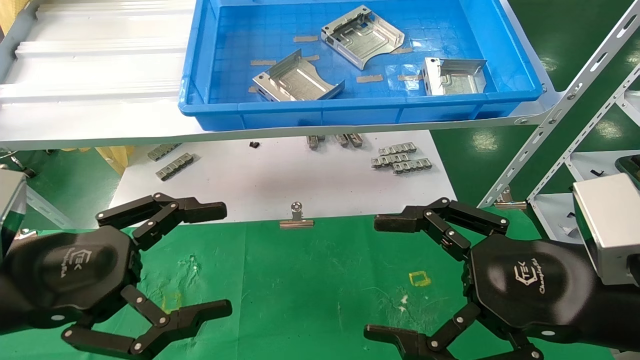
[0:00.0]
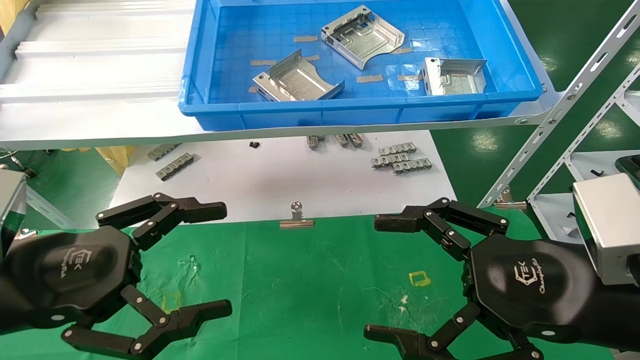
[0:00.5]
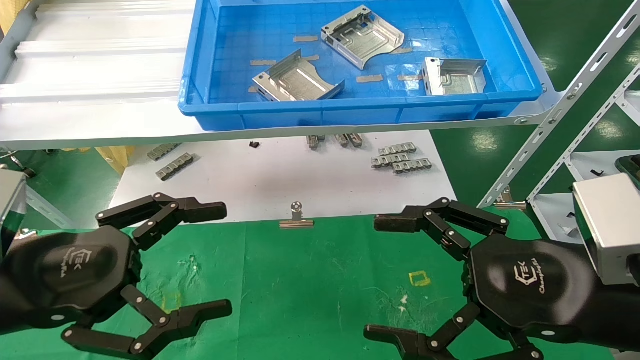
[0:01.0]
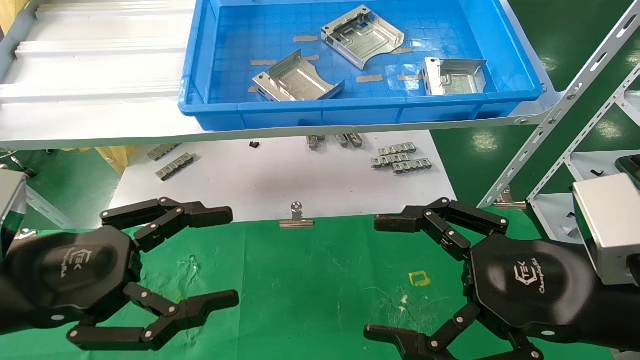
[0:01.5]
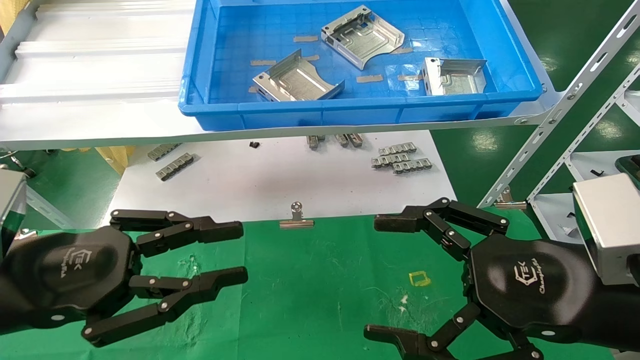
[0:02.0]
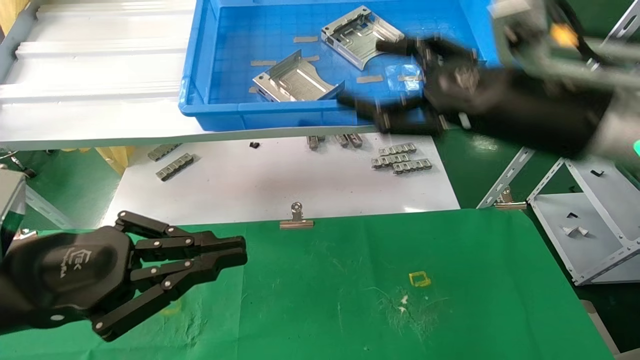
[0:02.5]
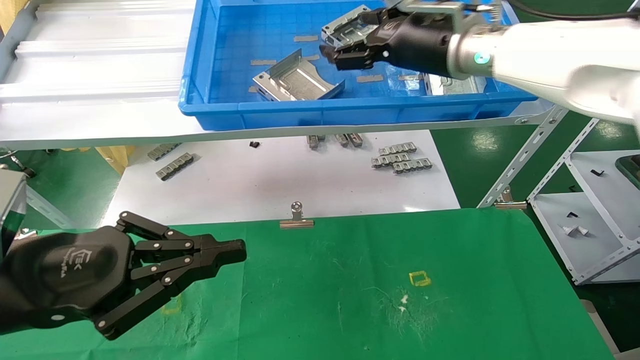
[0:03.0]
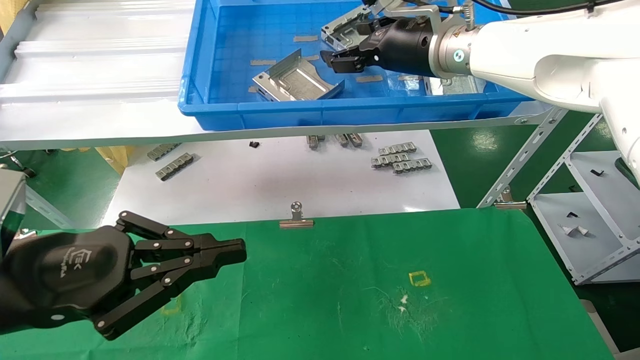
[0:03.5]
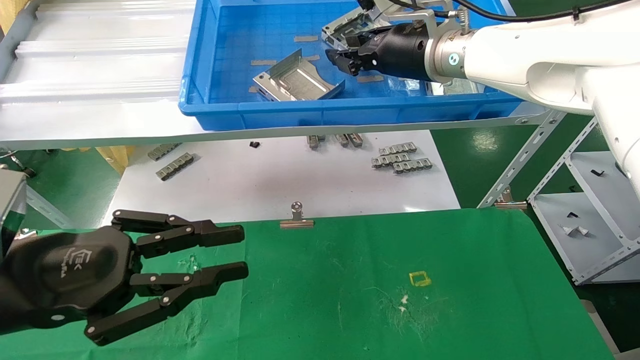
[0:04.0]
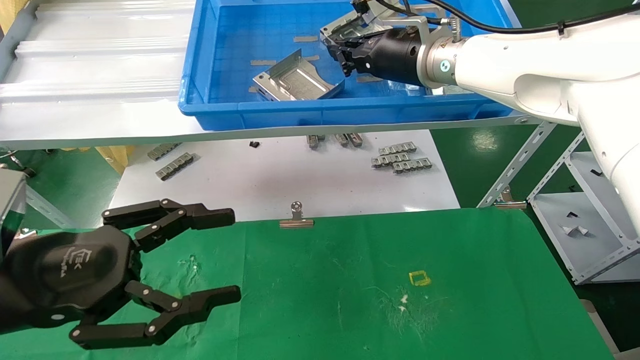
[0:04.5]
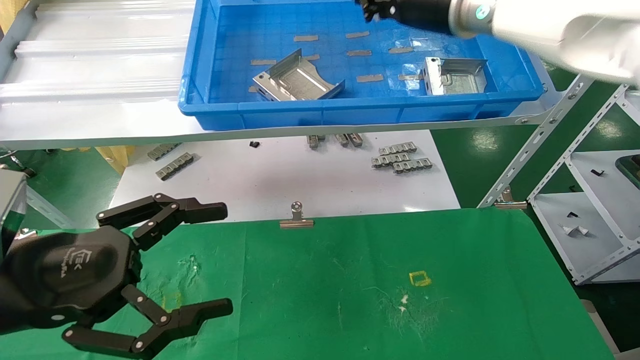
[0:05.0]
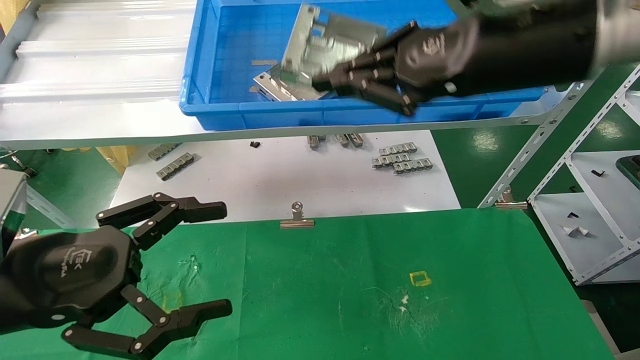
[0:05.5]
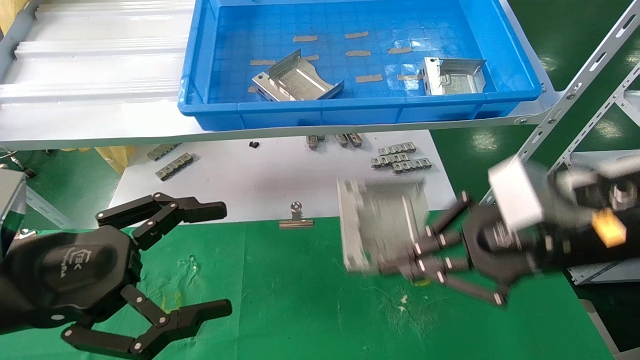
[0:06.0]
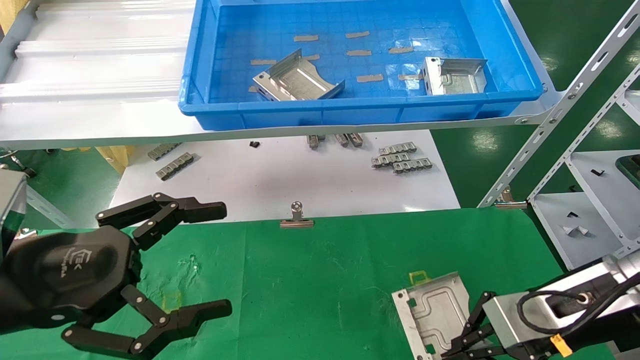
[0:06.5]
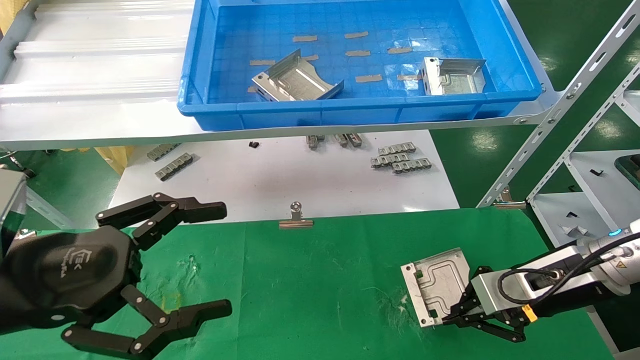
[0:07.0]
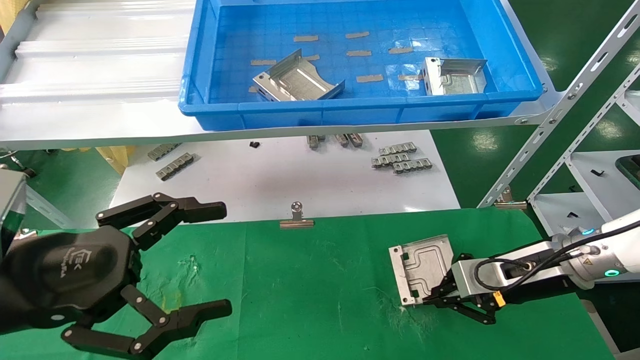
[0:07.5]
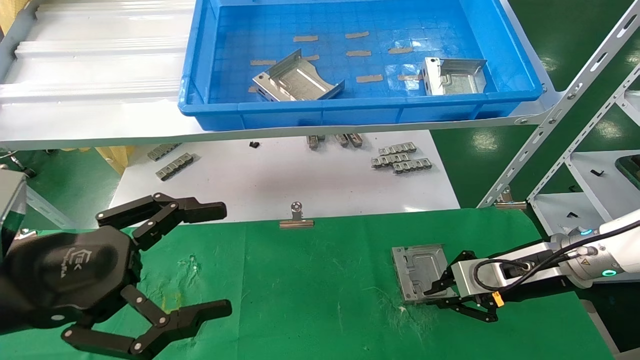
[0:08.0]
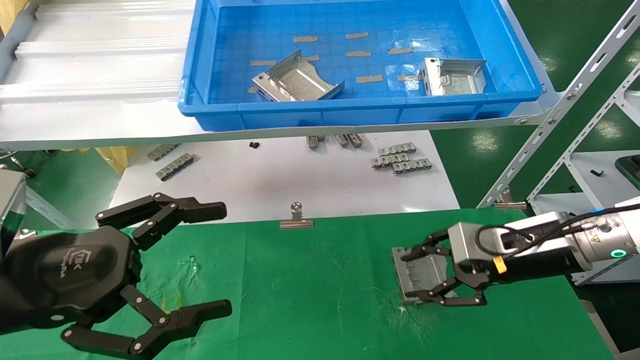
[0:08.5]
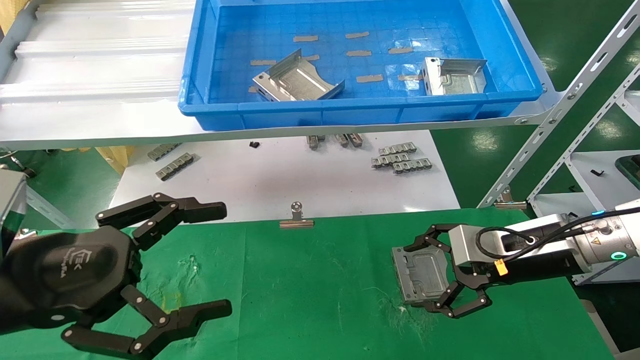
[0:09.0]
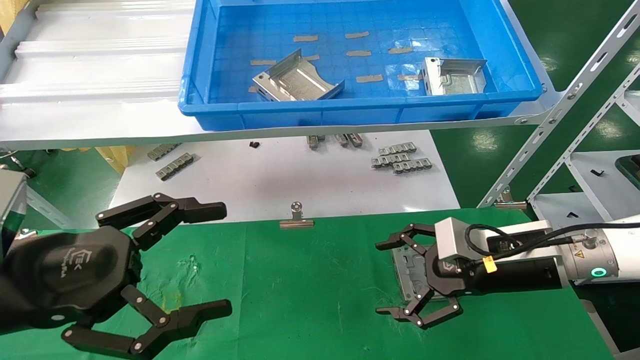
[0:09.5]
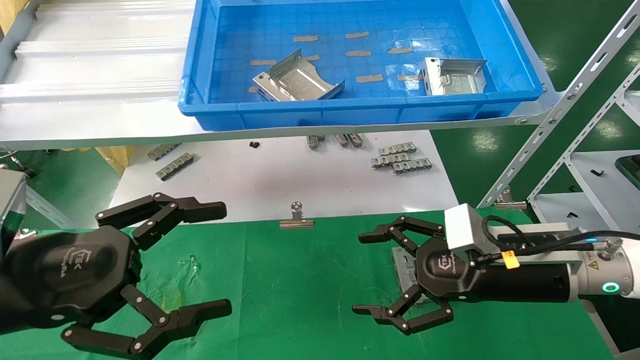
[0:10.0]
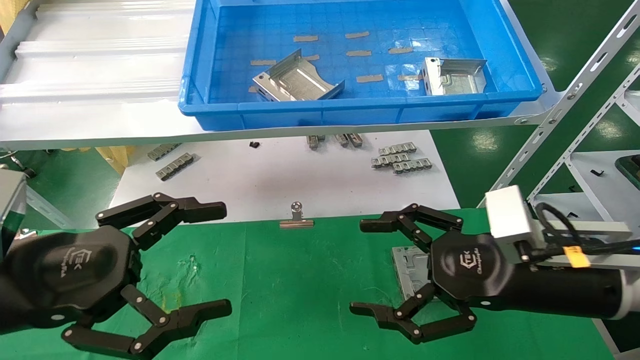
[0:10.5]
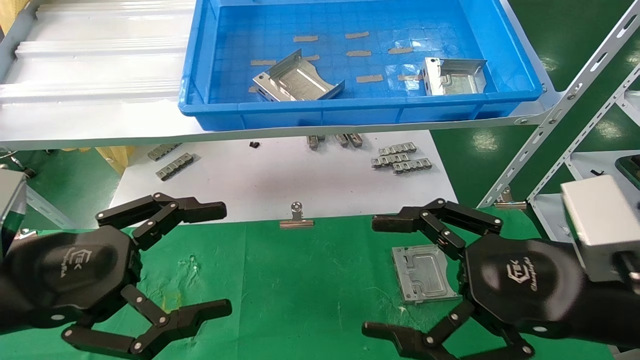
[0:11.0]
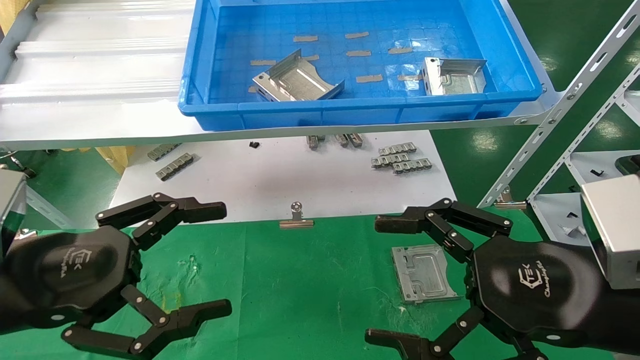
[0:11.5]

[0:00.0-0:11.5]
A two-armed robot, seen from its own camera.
Task of the whole recording: use the mechanical arm to pick up the parts and place them on the table.
Step, 0:01.5 to 0:05.0: Pick up the hard drive bracket from the feeding area.
Step, 0:05.5 to 0:08.5: Place the hard drive bracket into the box.
0:00.0 to 0:02.0: The left gripper closes its fingers.
0:02.0 to 0:04.0: The right gripper travels forward, upward and to the left by approximately 30 cm, and closes up.
0:04.0 to 0:06.0: The right gripper travels backward, to the right and downward by about 25 cm, and closes its fingers, while the left gripper opens.
0:06.0 to 0:07.5: The right gripper goes some 20 cm downward, forward and to the right.
0:07.5 to 0:09.5: The right gripper travels to the left by some 5 cm, and opens up.
0:09.5 to 0:11.5: The right gripper is displaced backward by about 15 cm.

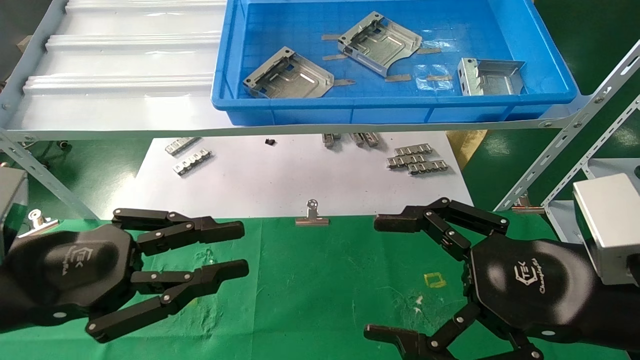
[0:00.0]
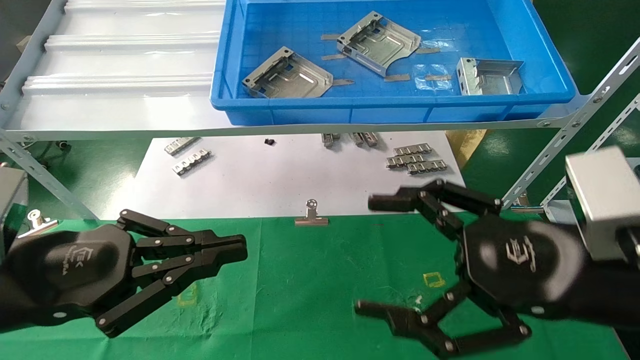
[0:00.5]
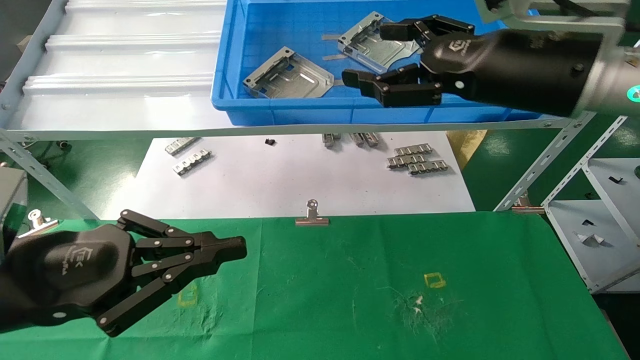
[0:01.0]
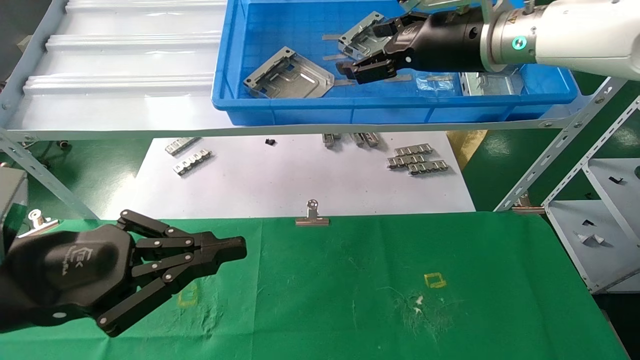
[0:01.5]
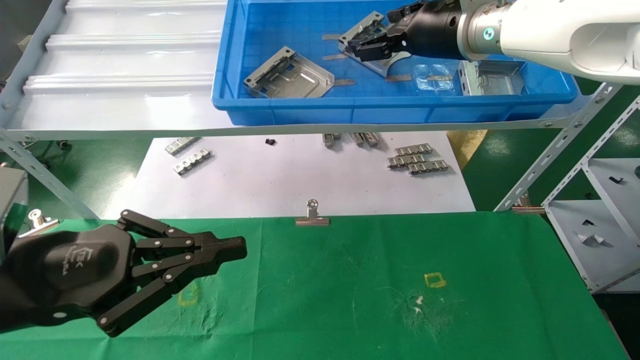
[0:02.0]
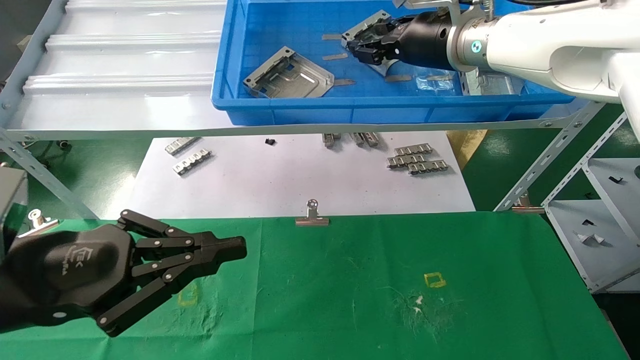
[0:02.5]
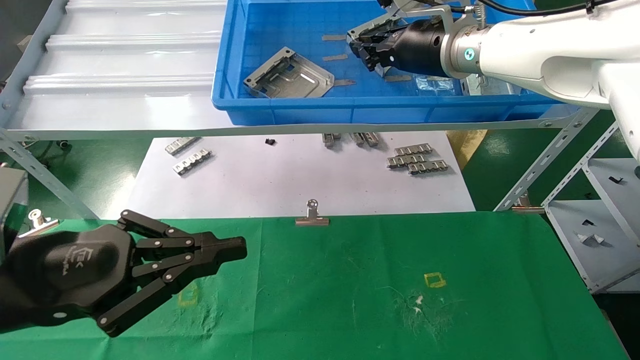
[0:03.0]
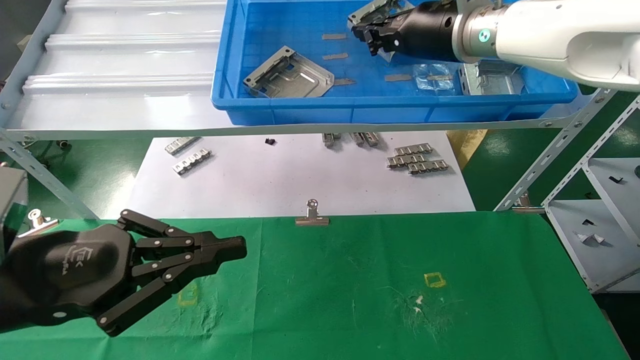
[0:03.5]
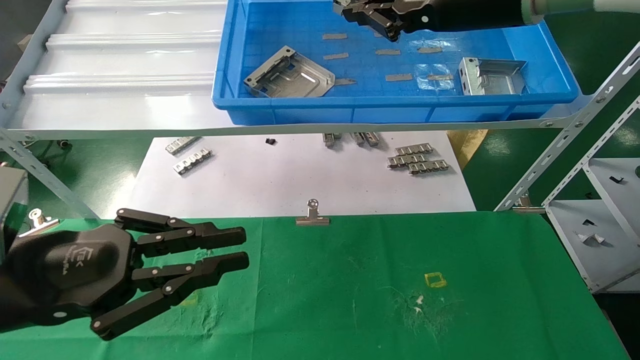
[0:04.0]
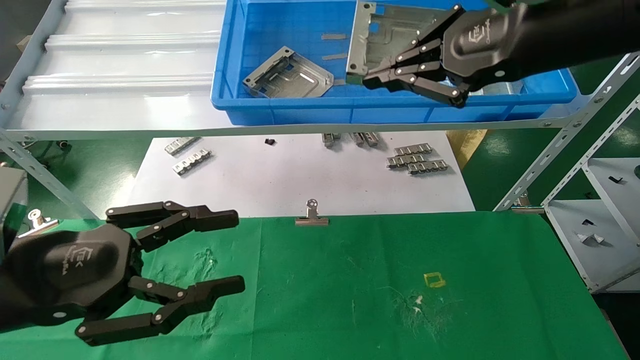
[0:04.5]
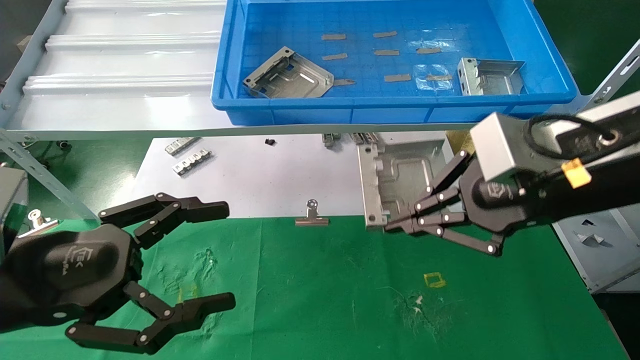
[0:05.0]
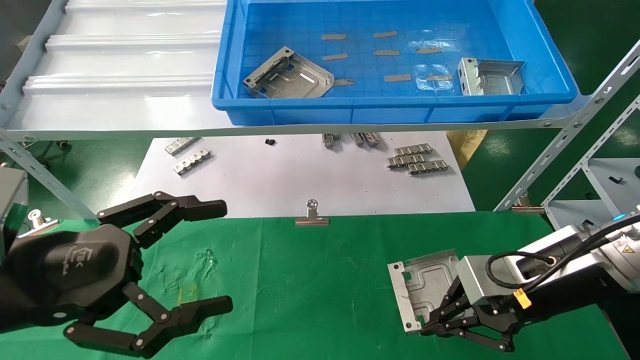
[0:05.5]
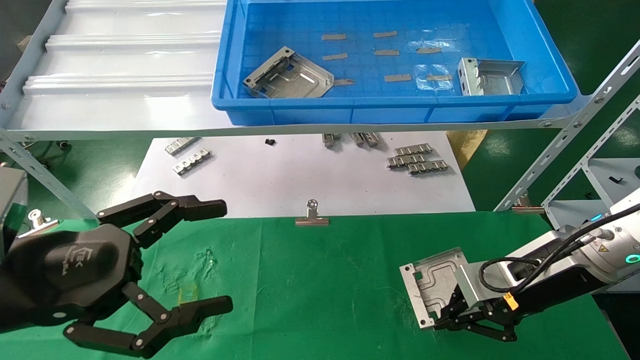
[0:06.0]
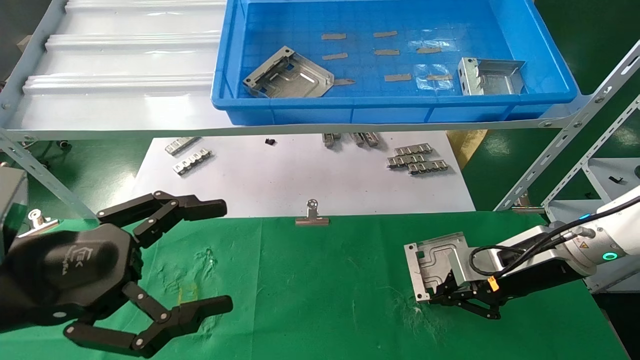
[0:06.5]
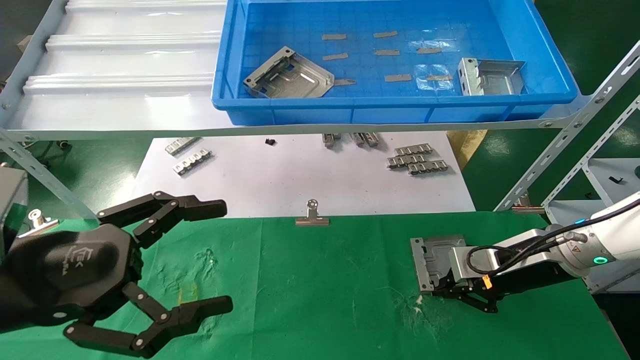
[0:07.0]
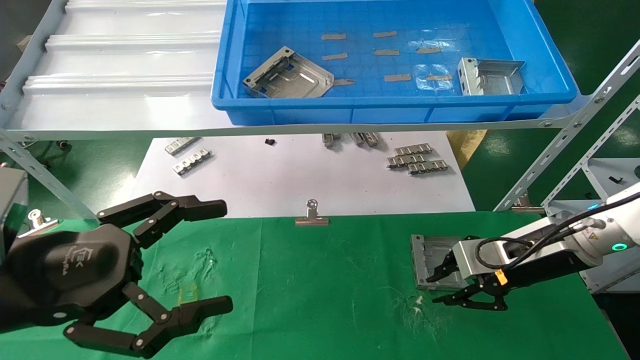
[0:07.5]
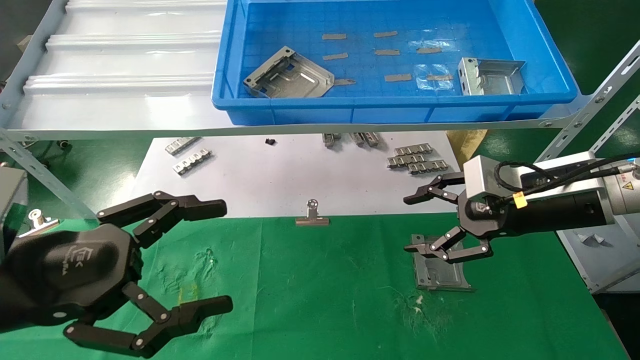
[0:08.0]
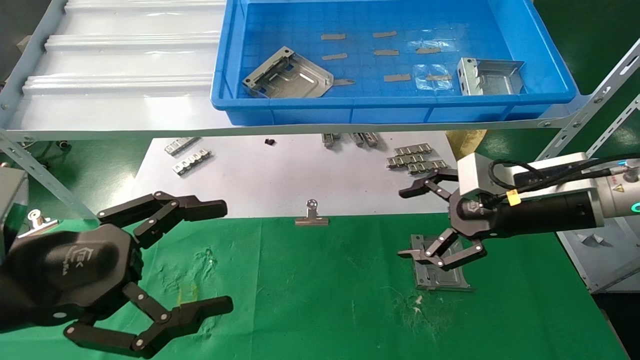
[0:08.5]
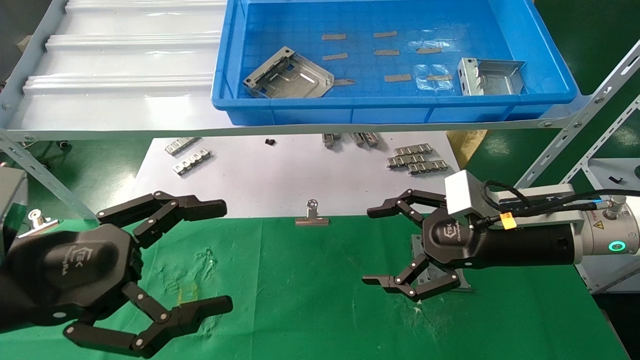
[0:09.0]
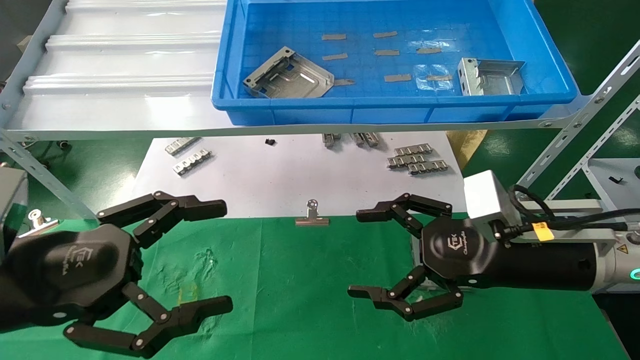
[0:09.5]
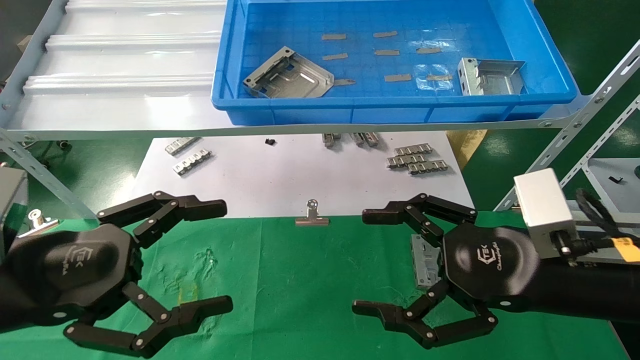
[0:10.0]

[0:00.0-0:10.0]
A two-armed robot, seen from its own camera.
Task of the whole recording: use the mechanical arm to pick up the parts and place them on the table.
Step, 0:01.0 to 0:03.0: Pick up the hard drive bracket from the feeding area.
Step, 0:03.5 to 0:07.0: Place the hard drive bracket into the box.
0:00.0 to 0:02.0: The right gripper goes some 30 cm forward and upward.
0:02.0 to 0:04.0: The right gripper shifts approximately 10 cm backward, and closes its fingers.
0:04.0 to 0:06.0: The right gripper travels downward by some 30 cm, while the left gripper opens up.
0:06.0 to 0:08.0: The right gripper travels upward by about 5 cm, and opens.
0:08.0 to 0:10.0: The right gripper goes roughly 10 cm backward, and opens.
